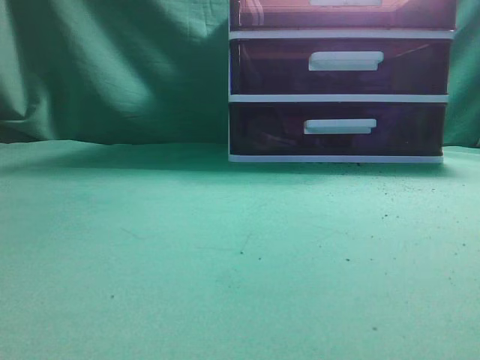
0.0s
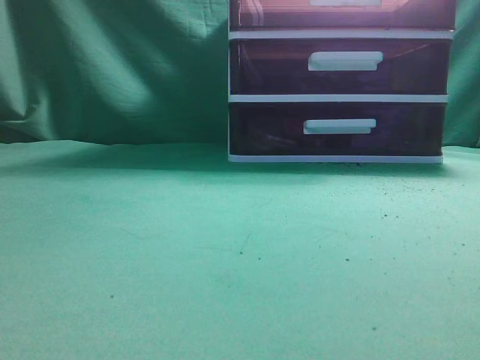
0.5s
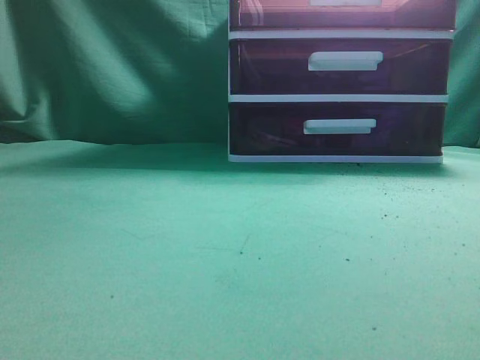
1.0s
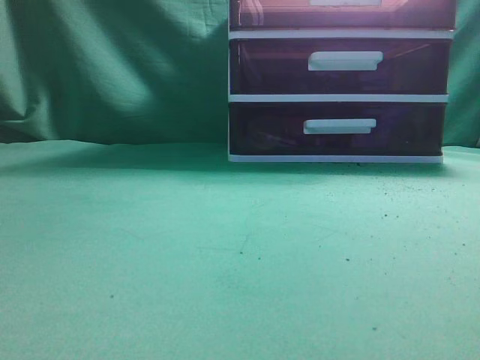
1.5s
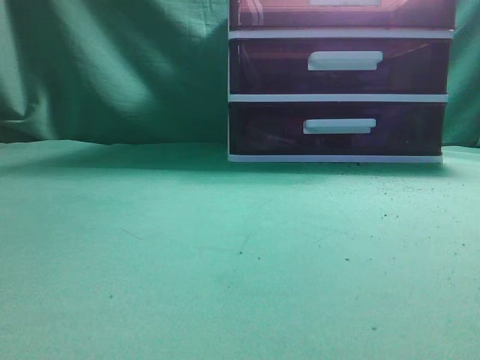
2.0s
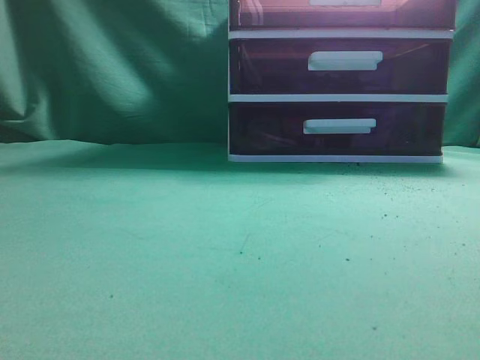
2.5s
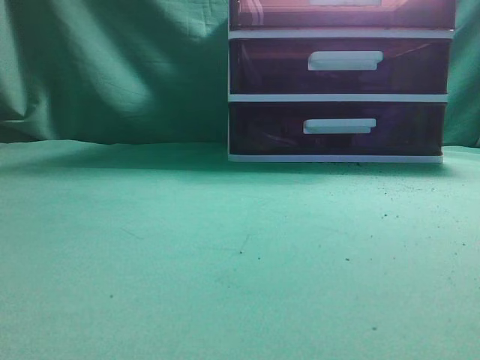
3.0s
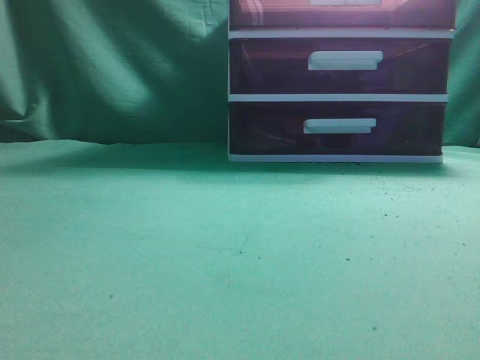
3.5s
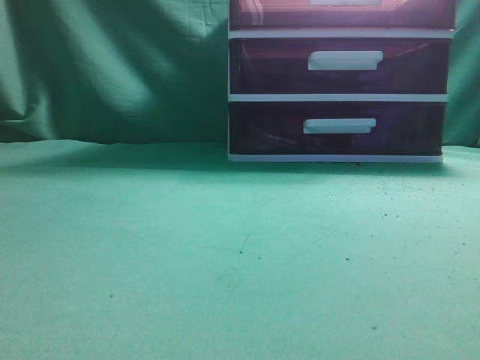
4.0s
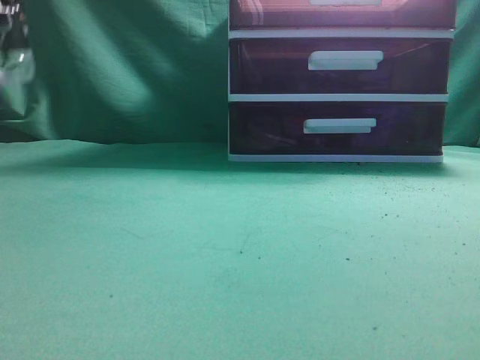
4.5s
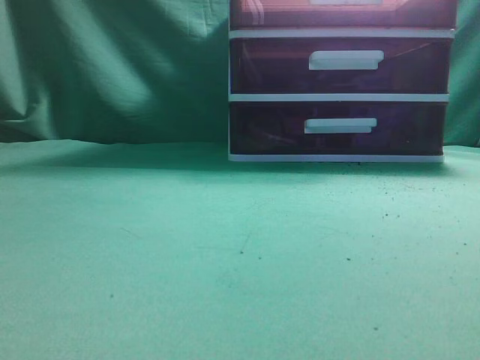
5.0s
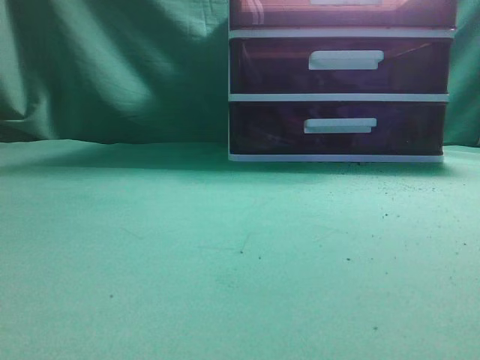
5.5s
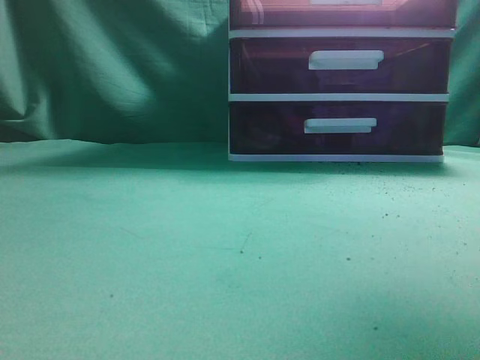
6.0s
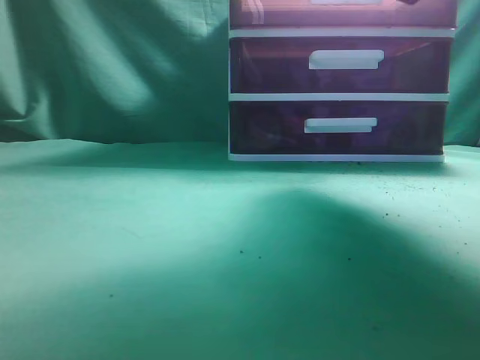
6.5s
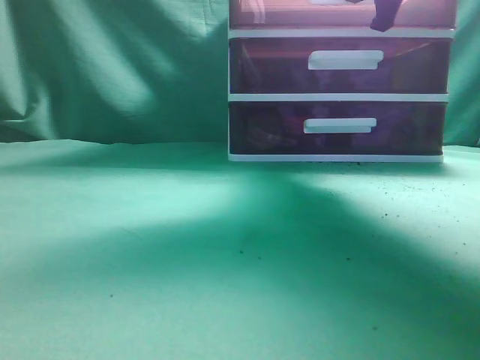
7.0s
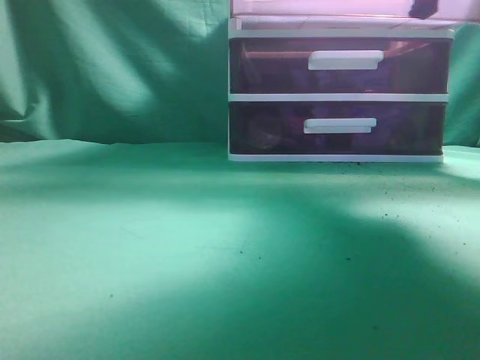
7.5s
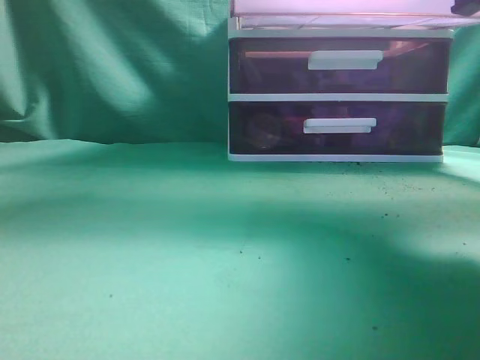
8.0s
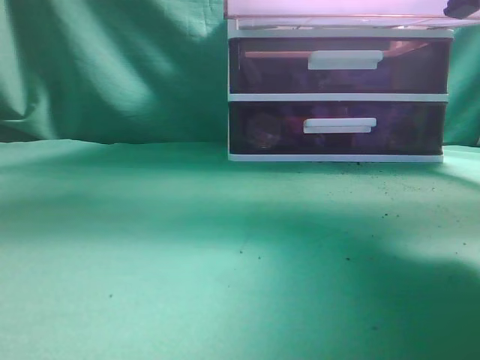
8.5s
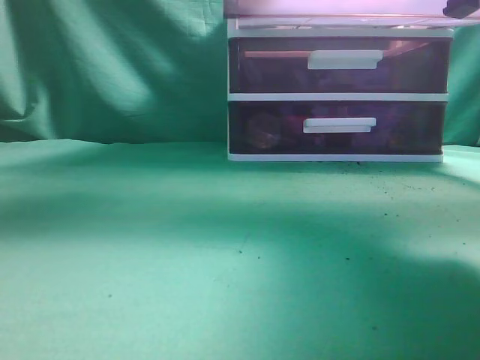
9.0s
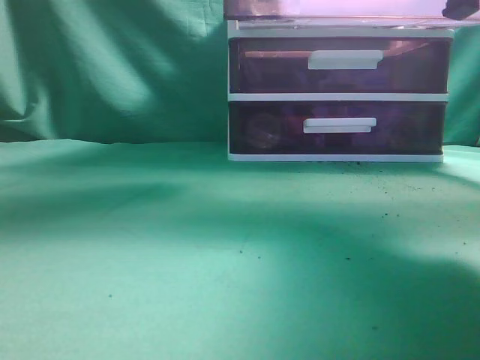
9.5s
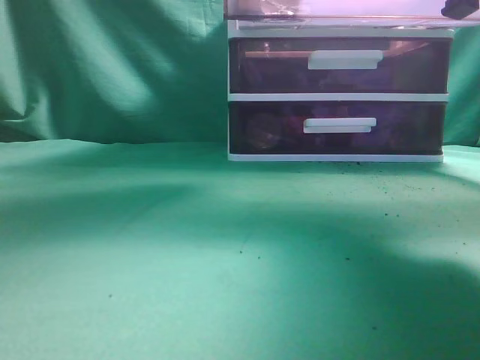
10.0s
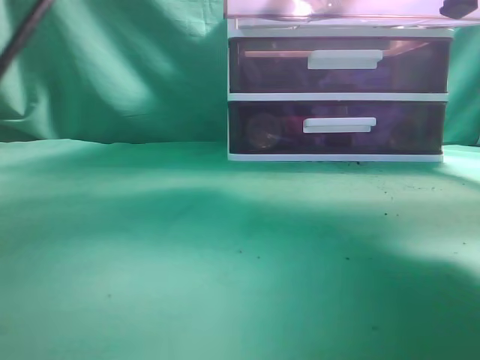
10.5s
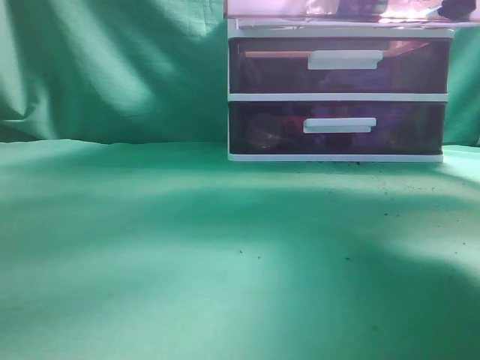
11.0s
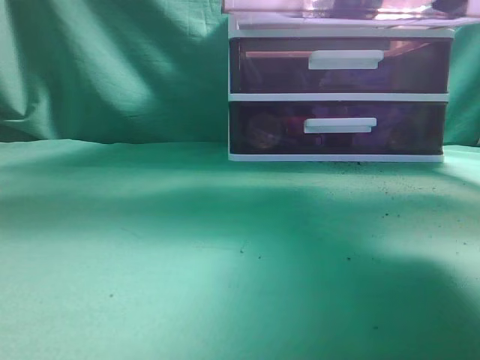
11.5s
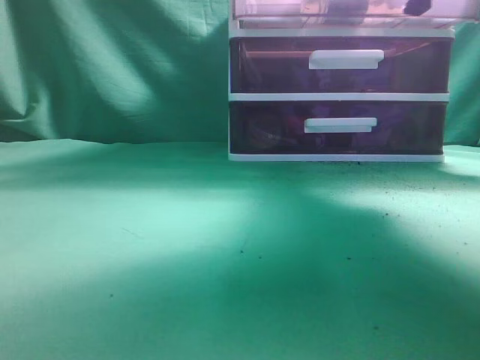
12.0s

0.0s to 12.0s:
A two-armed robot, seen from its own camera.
Task of the whole recording: place the water bottle into the drawer.
Step, 0.0s to 8.0s: Open the drawer.
Step, 8.5s to 11.0s: Place the water bottle inside the drawer.
4.0s to 6.0s: The right gripper moves forward and upward, roughly 30 cm.
6.0s to 8.0s: The right gripper shifts about 10 cm downward, moves some 15 cm forward and comes back, and opens, then closes once more.
8.0s to 10.0s: The left gripper travels to the right and forward by roughly 25 cm, and opens its fingers.
10.0s to 12.0s: The left gripper travels to the left and backward by about 10 cm, and closes up, while the right gripper travels forward by roughly 10 cm.

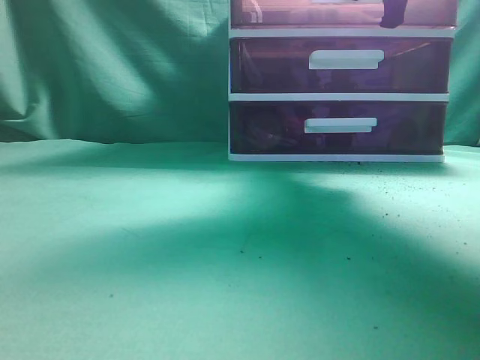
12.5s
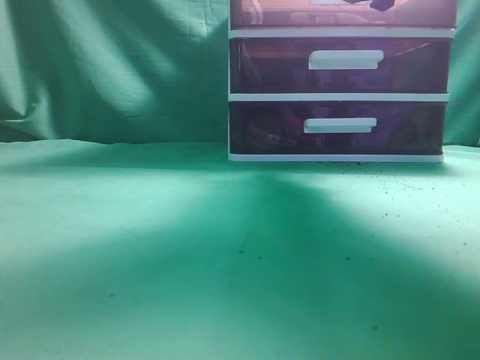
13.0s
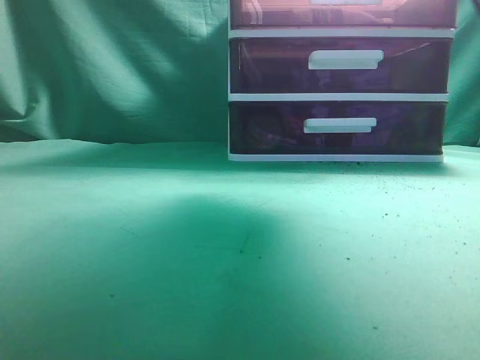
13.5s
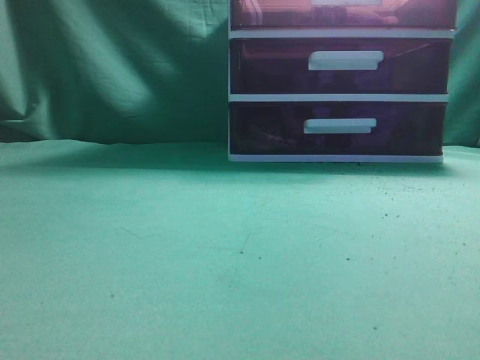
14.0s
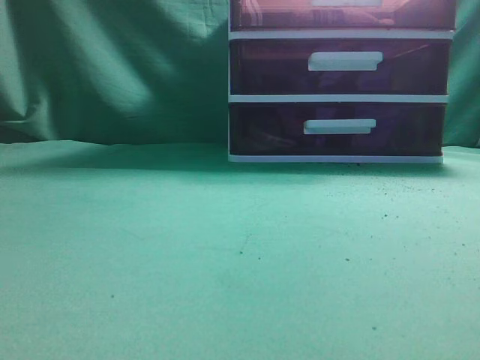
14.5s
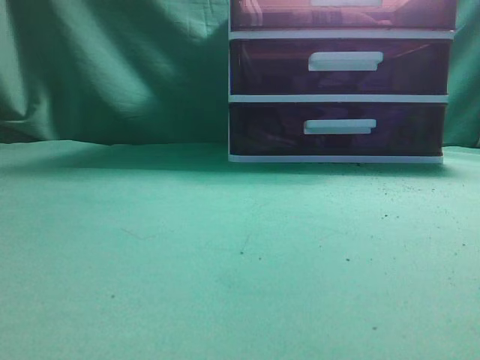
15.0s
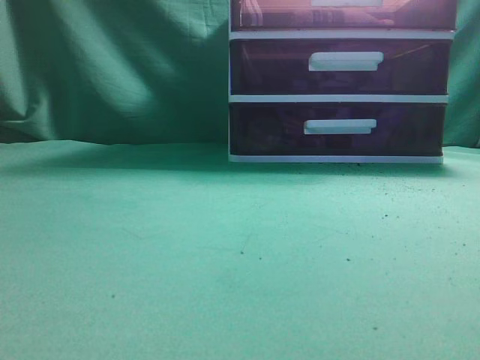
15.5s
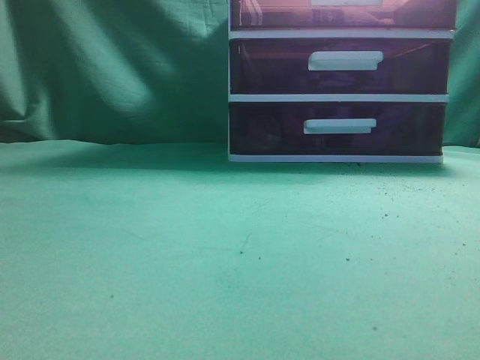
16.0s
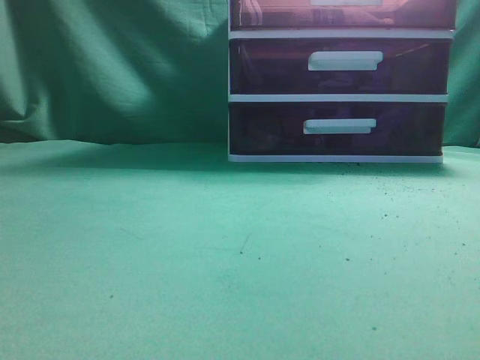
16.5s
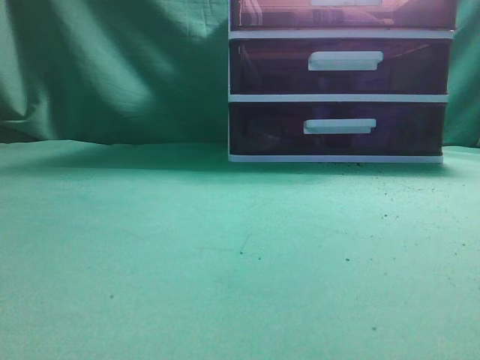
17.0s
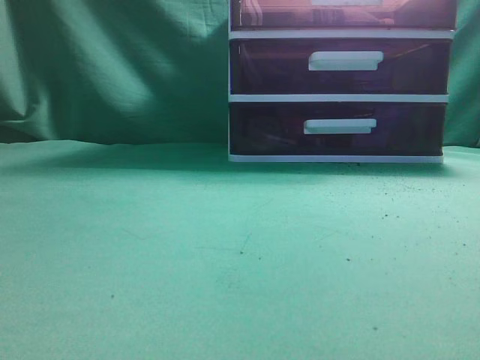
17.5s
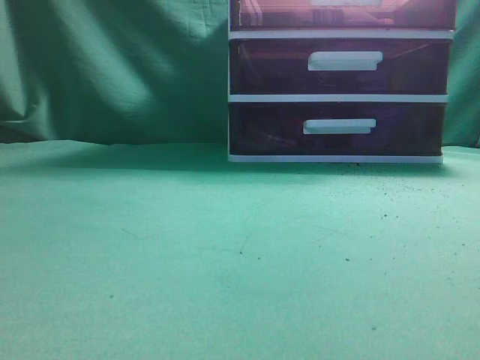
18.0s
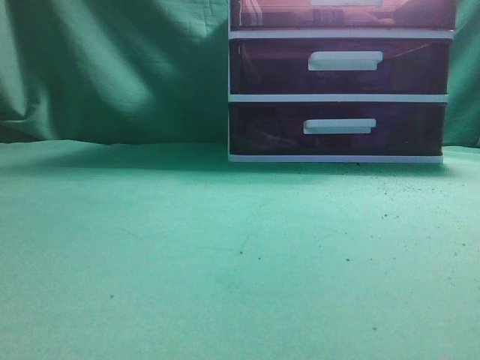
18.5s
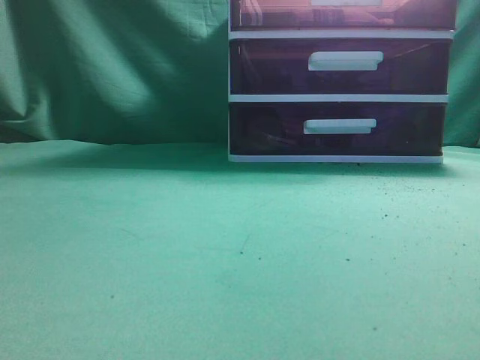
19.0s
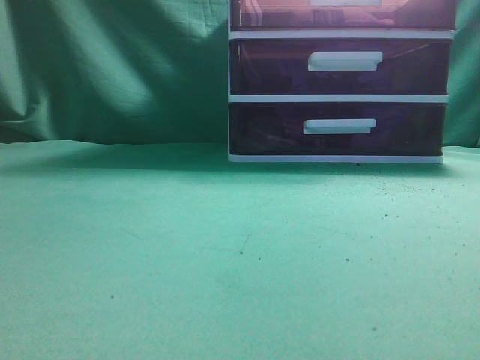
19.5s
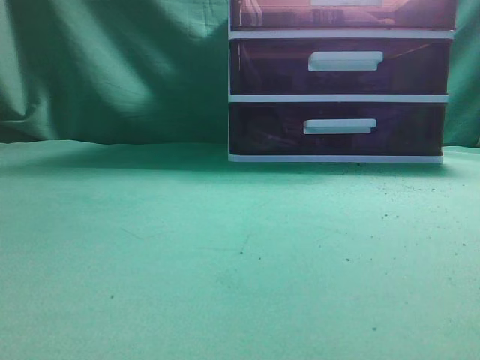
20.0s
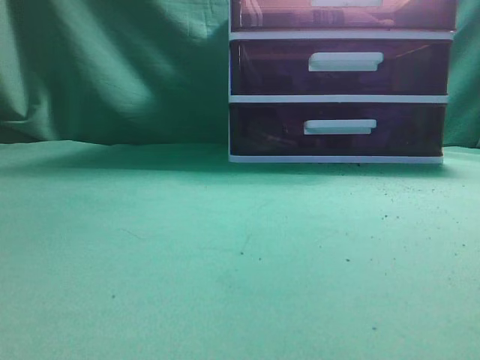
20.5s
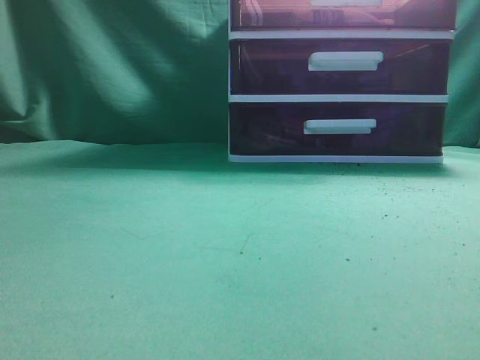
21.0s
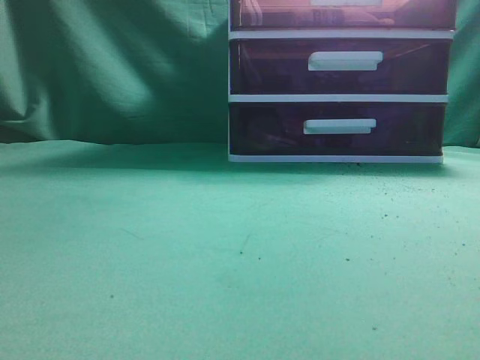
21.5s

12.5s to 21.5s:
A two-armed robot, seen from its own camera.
Task of the whole recording: place the water bottle into the drawer.
12.5s to 14.5s: The grippers both shift backward and upward by some 30 cm. The right gripper opens, then closes again.
